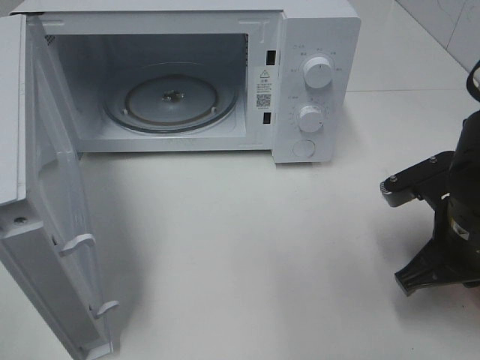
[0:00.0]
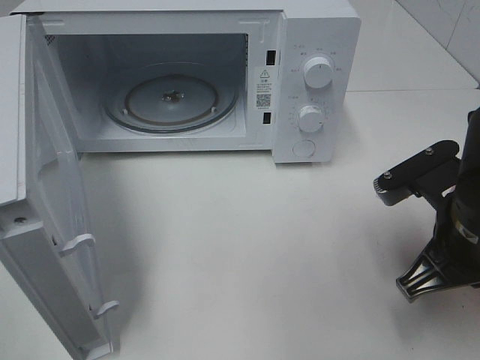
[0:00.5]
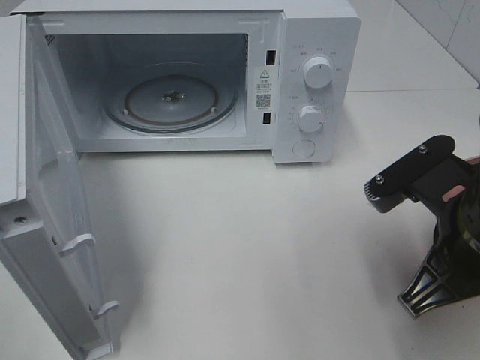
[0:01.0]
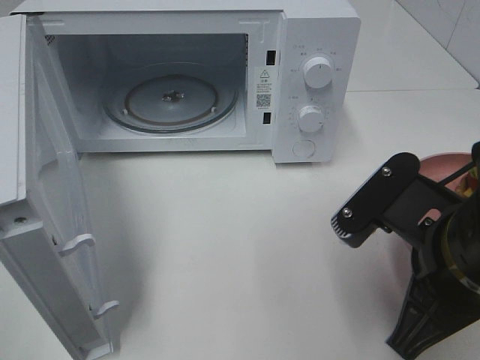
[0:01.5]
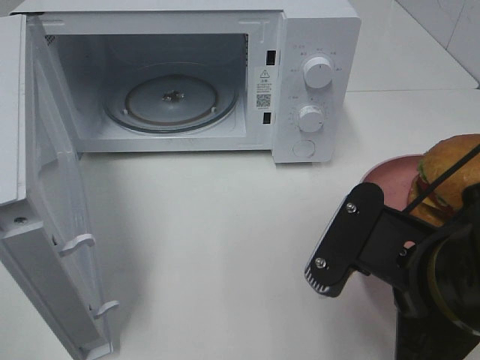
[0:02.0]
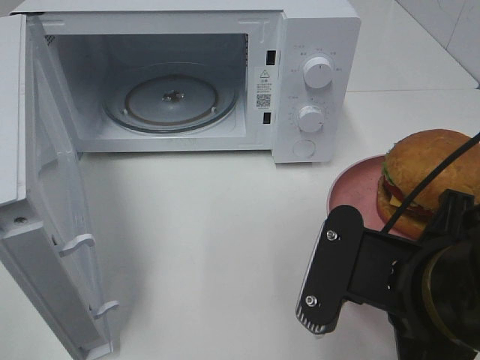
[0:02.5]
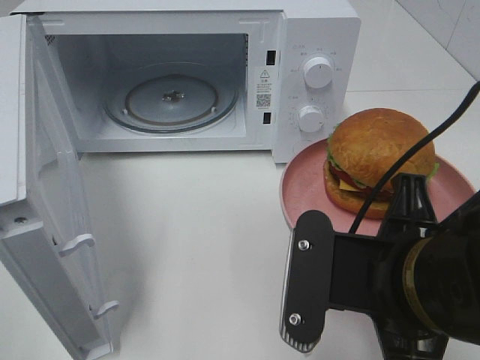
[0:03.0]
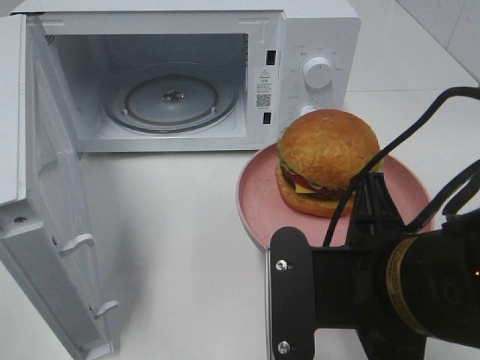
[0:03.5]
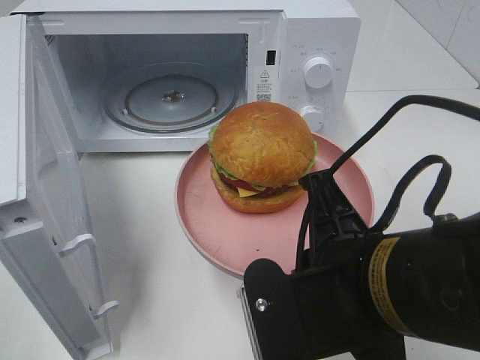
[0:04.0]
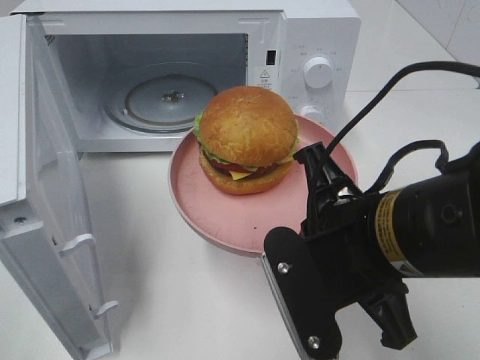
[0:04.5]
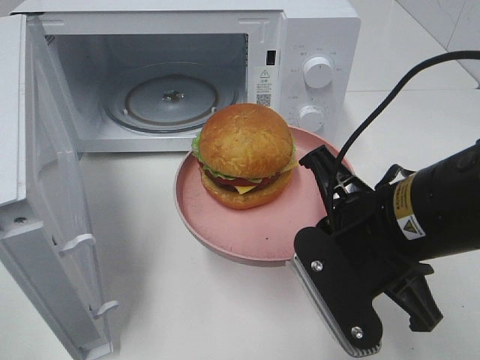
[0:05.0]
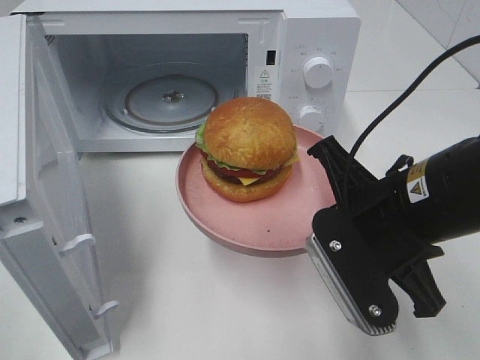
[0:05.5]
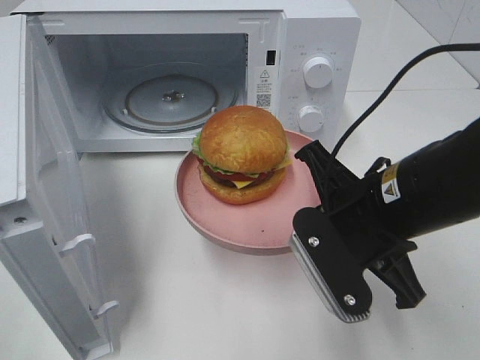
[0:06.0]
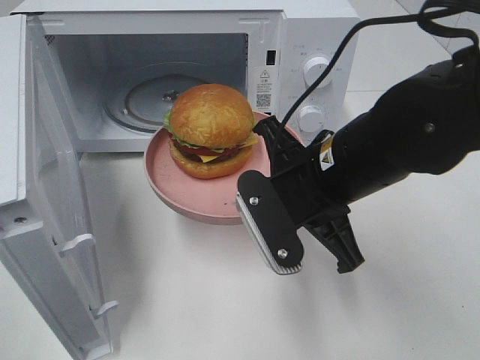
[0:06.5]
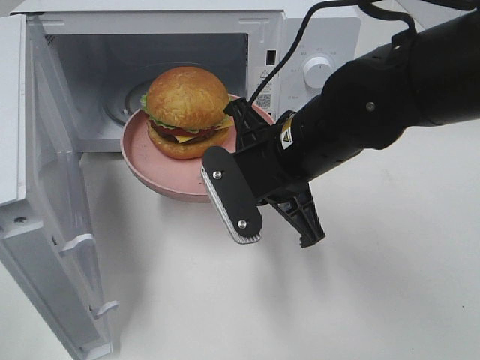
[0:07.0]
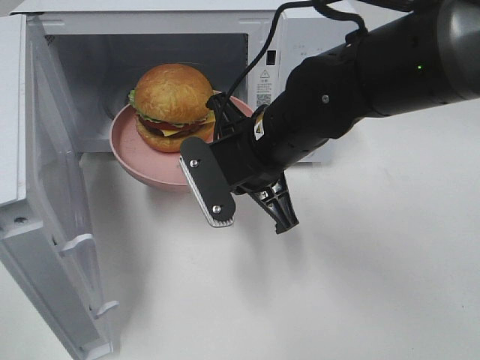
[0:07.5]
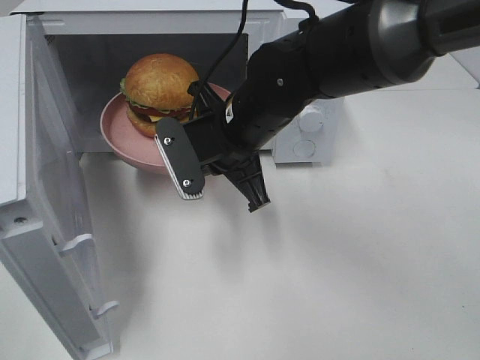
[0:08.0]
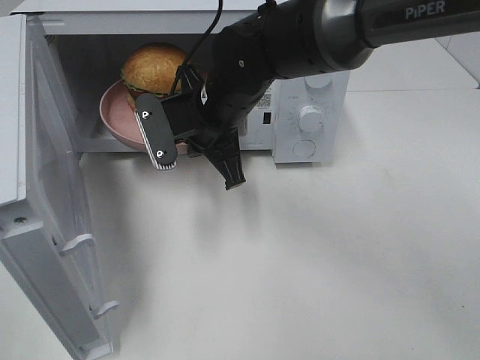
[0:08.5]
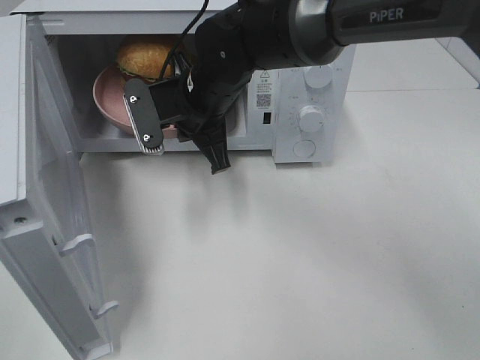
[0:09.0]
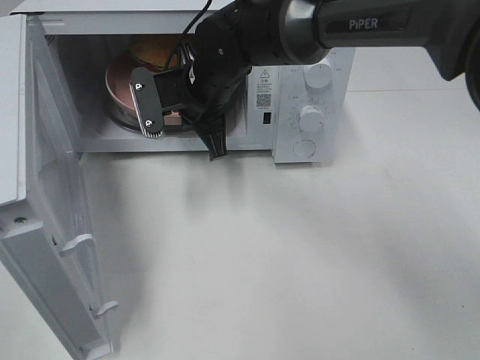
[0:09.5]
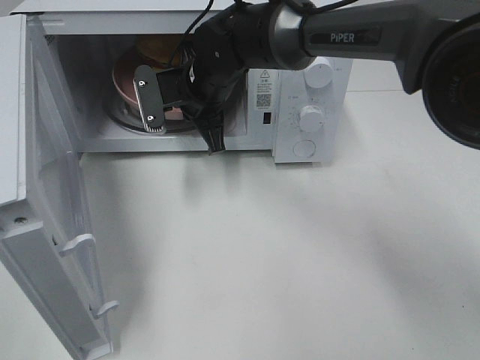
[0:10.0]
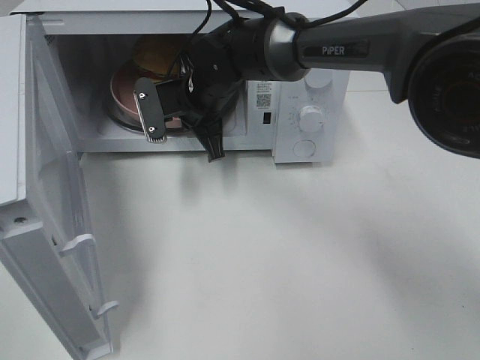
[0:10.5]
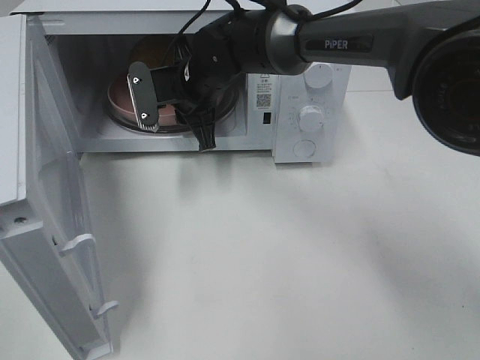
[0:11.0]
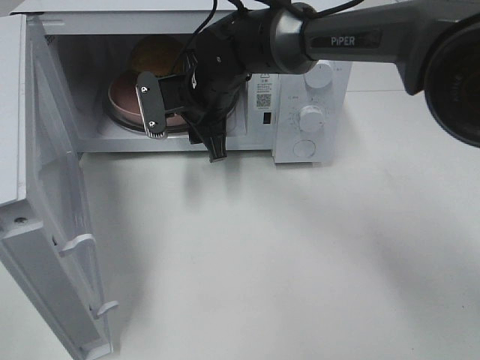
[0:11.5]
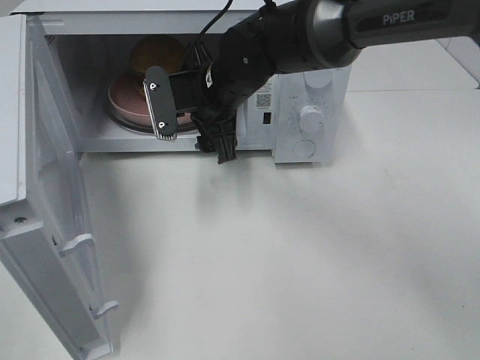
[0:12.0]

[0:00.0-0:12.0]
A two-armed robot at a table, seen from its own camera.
Task of the whole recording: Heat the burger.
Step, 0:00.0 to 0:11.0: Right hand: place the plate in the microwave.
0:00.0 to 0:02.0: The right gripper is displaced backward, to the left and upward by some 15 cm.
0:04.0 to 0:06.0: The right gripper heads forward, covering some 10 cm.
0:06.0 to 0:08.0: The right gripper is displaced to the left and forward by approximately 15 cm.
0:08.0 to 0:10.0: The right gripper heads forward, covering about 10 cm.
0:10.0 to 0:12.0: The right gripper opens its fingers.

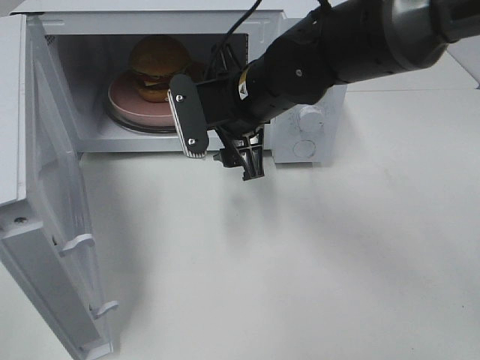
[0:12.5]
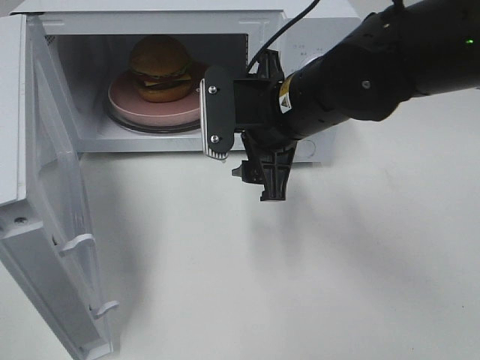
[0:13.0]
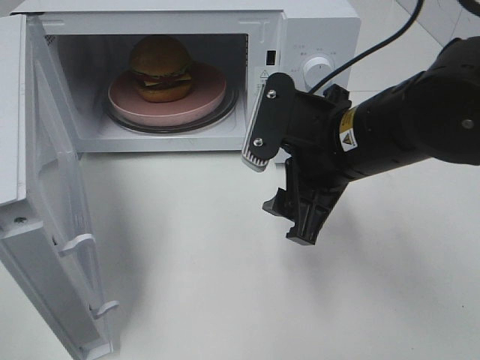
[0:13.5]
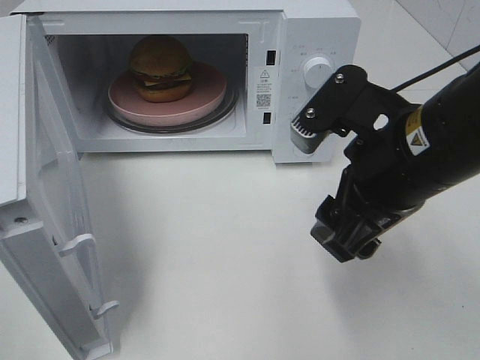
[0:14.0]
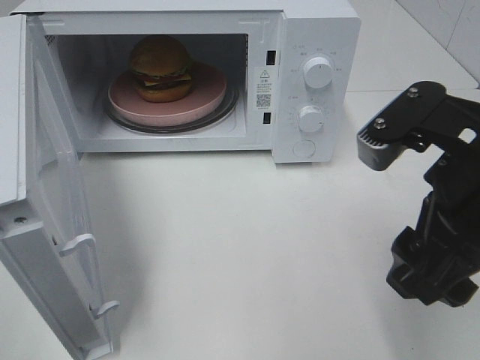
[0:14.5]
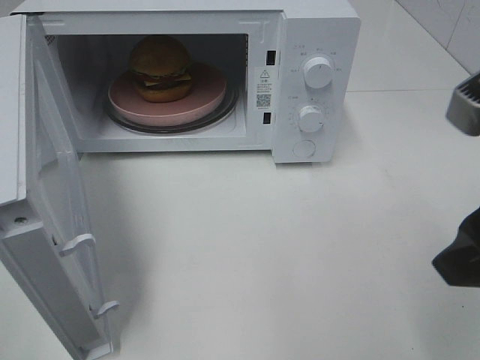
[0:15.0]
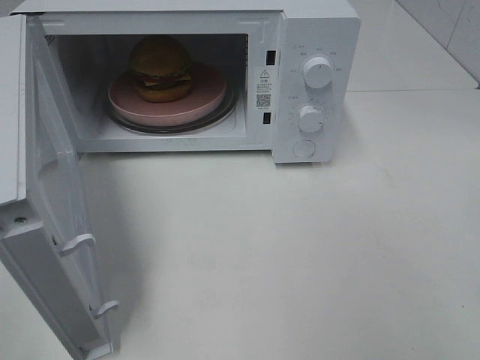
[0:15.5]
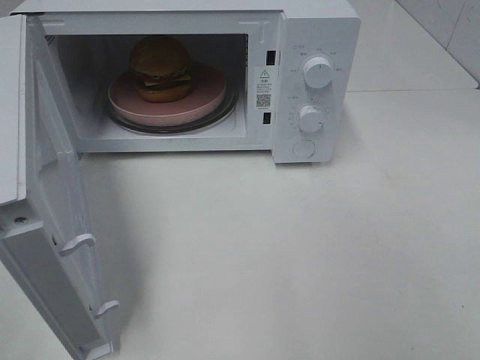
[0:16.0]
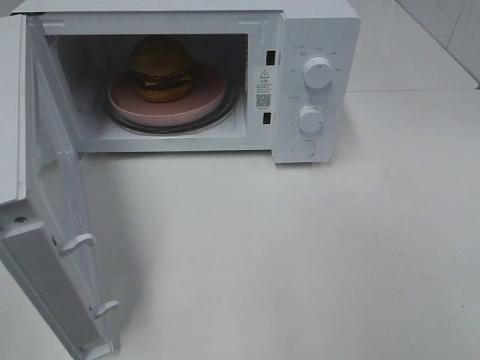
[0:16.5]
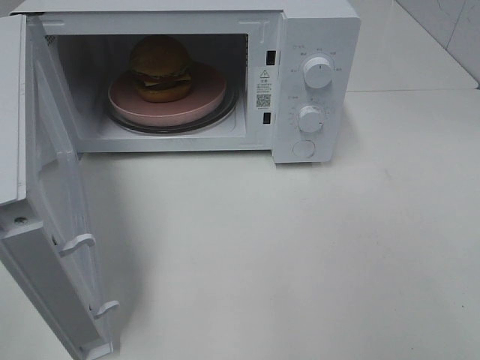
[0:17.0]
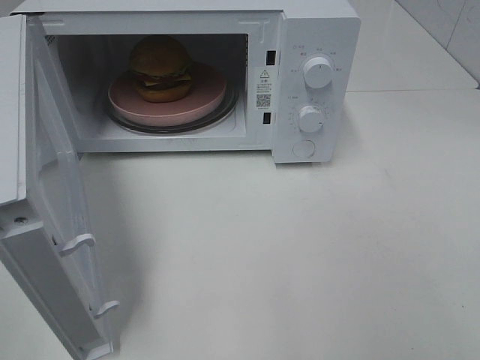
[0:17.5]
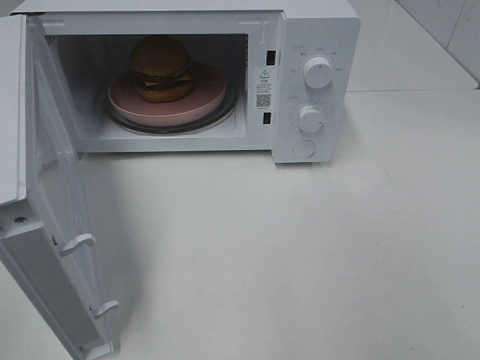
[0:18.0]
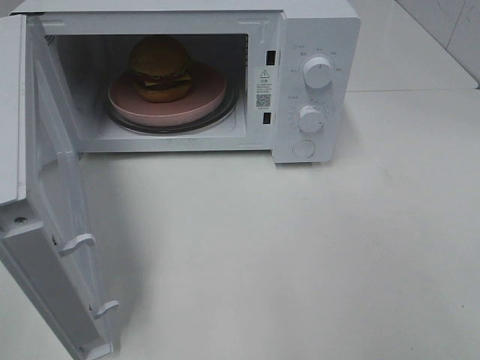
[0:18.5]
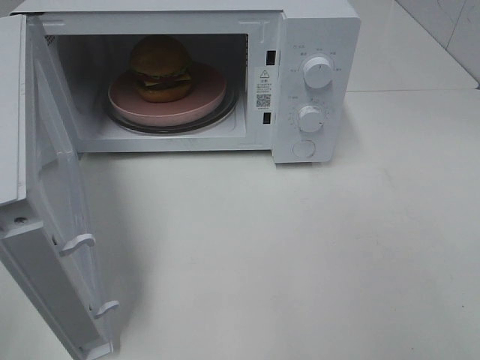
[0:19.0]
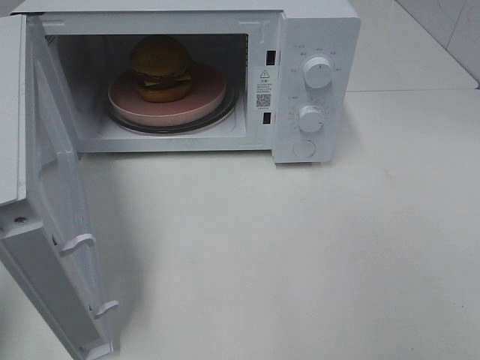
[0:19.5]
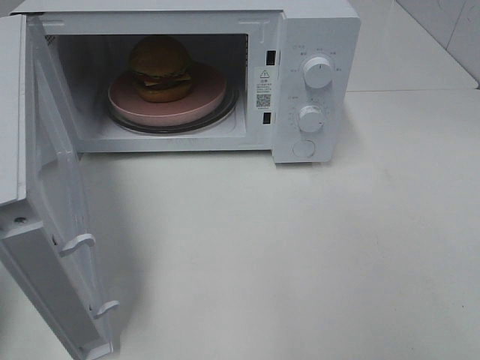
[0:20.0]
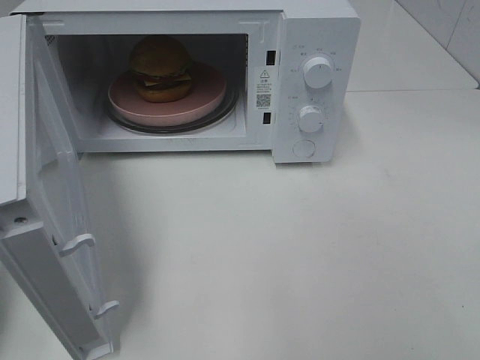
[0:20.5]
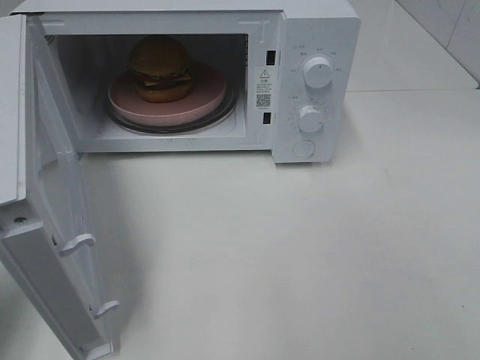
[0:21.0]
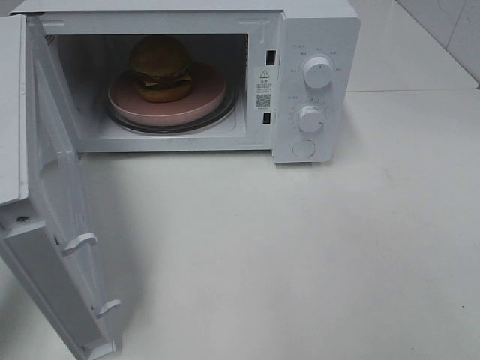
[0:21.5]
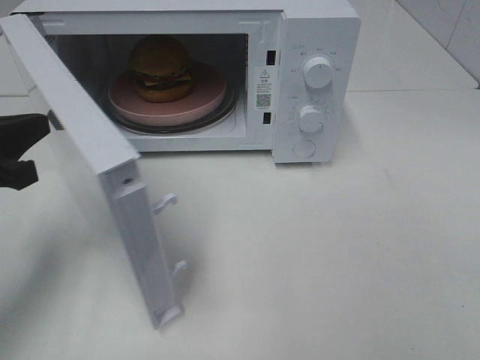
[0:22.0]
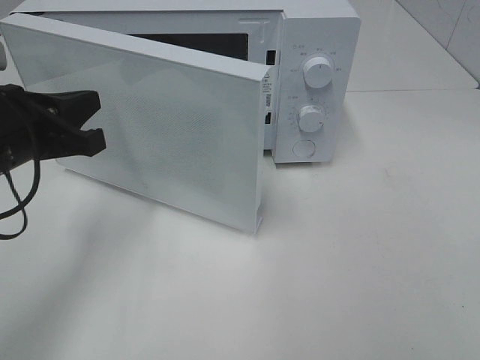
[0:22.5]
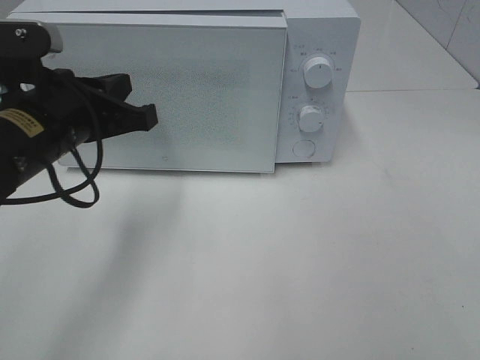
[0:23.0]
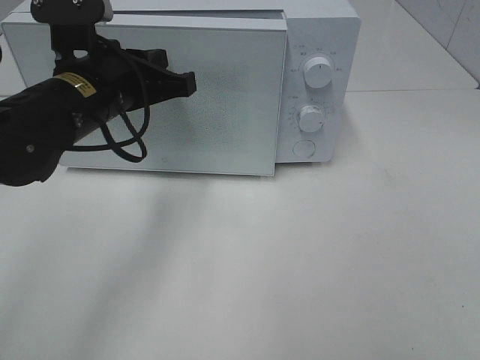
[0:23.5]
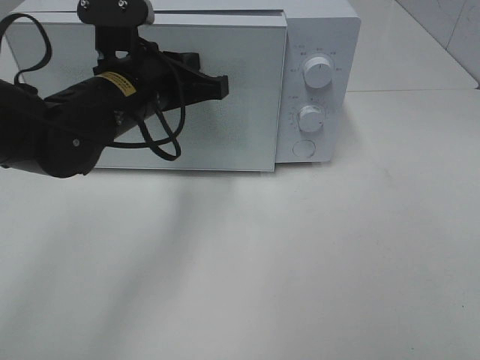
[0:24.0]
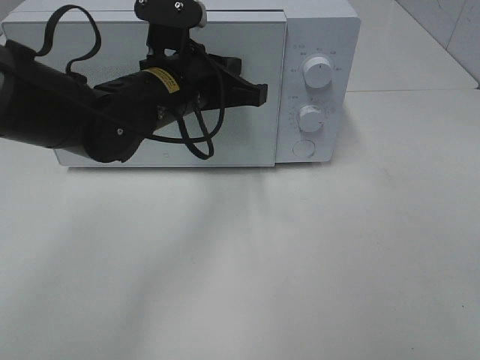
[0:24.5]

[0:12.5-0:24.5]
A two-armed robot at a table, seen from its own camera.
Task of the whole recording: Heat the burger.
0:12.5 to 0:14.5: The right gripper goes about 25 cm backward and to the right.
0:14.5 to 0:16.5: The right gripper heads backward and to the right, covering roughly 20 cm.
0:16.5 to 0:18.5: Both grippers stay put.
0:20.5 to 0:22.5: The left gripper heads forward and to the right, covering approximately 15 cm.
0:22.5 to 0:24.5: The left gripper heads to the right and forward, covering about 15 cm.

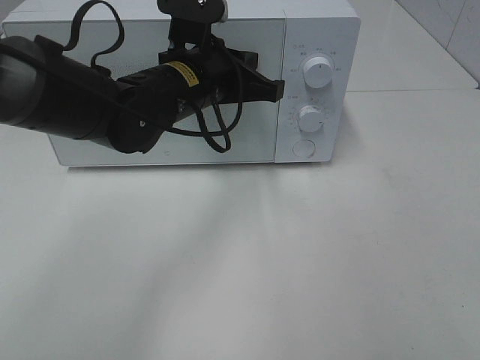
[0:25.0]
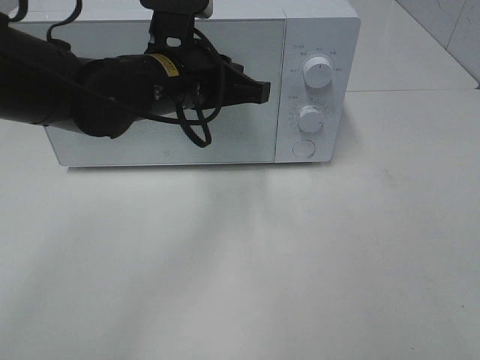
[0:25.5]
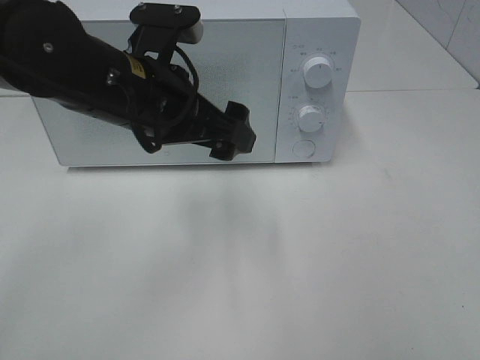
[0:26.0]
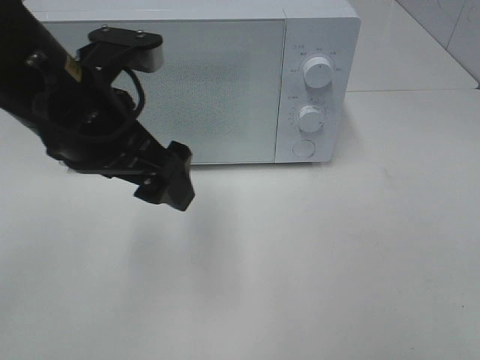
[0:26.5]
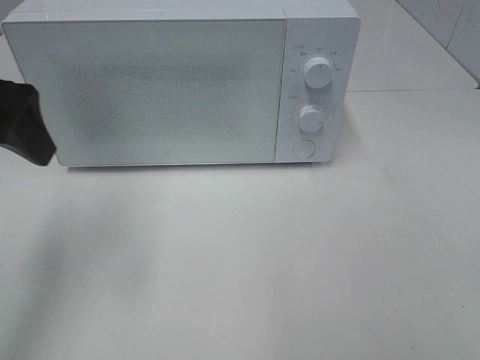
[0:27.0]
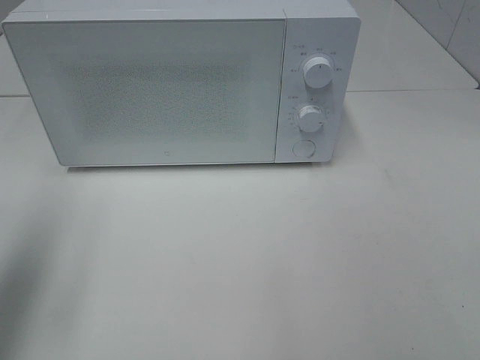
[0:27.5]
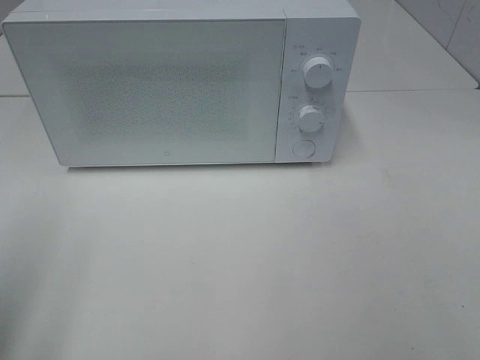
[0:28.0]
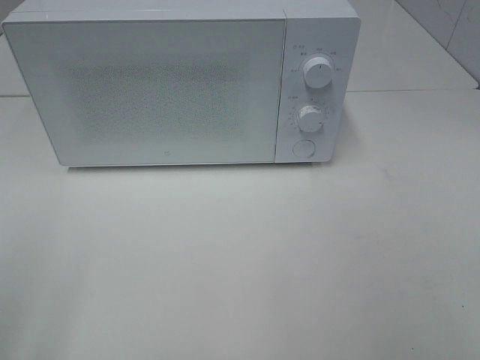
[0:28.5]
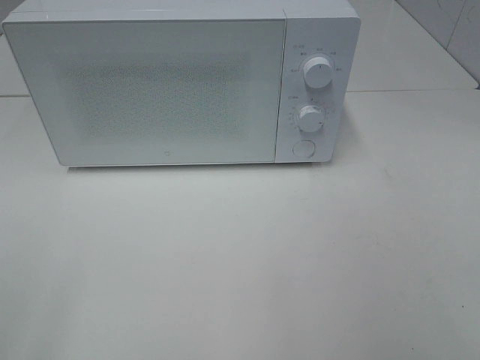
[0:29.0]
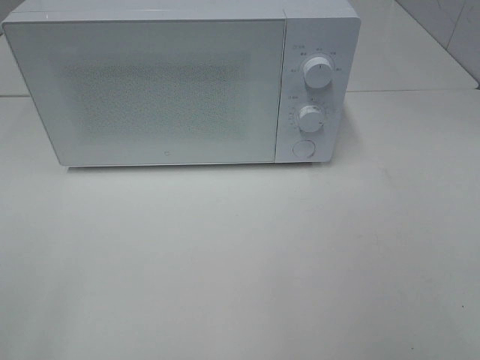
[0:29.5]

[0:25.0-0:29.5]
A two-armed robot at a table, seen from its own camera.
Task of the whole recording: Heat the burger.
0:25.0 to 0:27.0: The left gripper shifts approximately 25 cm to the left, upward and backward, and opens.
0:27.0 to 0:29.5: The left gripper travels backward by roughly 25 cm.
